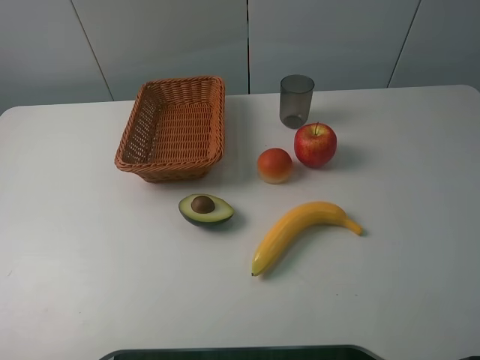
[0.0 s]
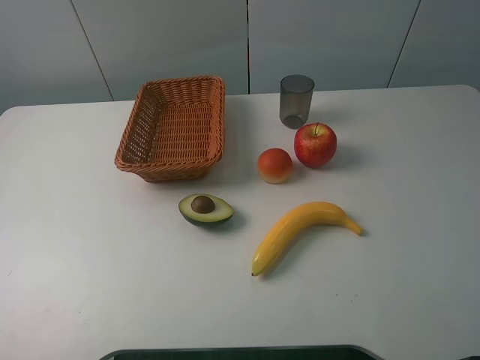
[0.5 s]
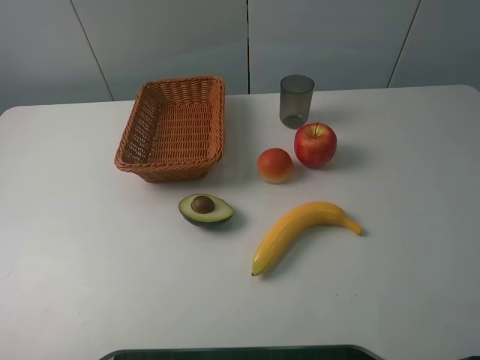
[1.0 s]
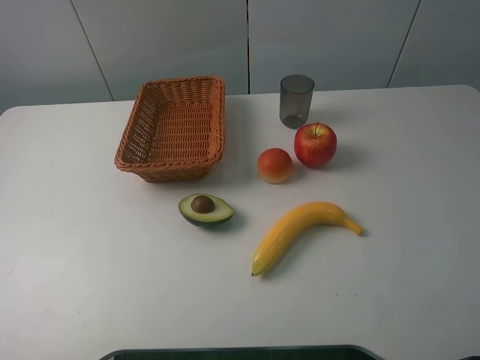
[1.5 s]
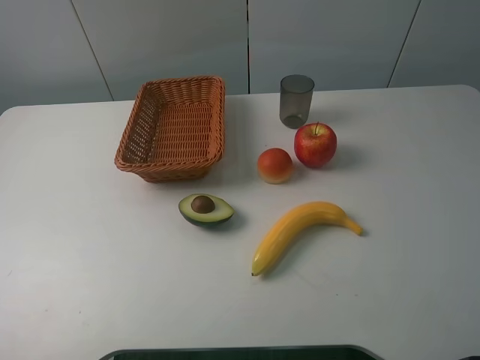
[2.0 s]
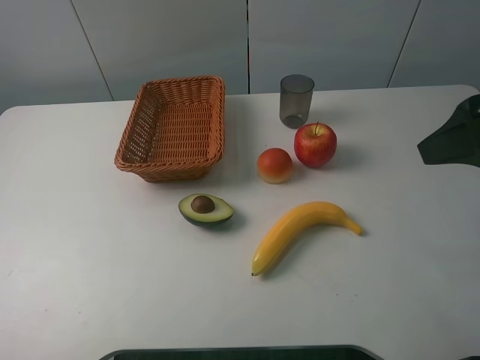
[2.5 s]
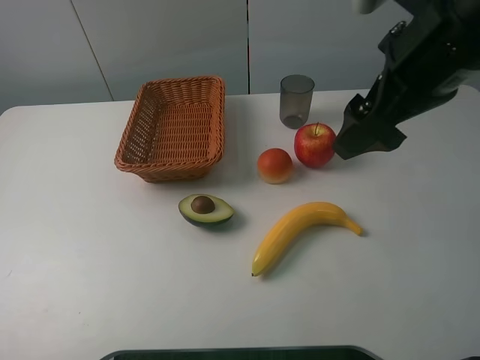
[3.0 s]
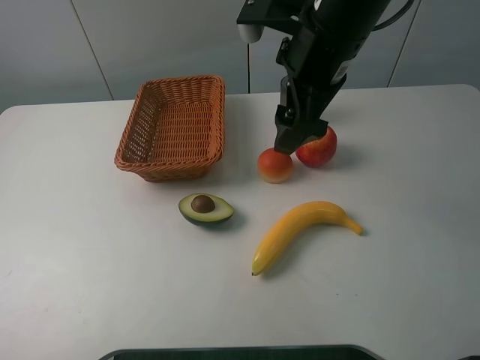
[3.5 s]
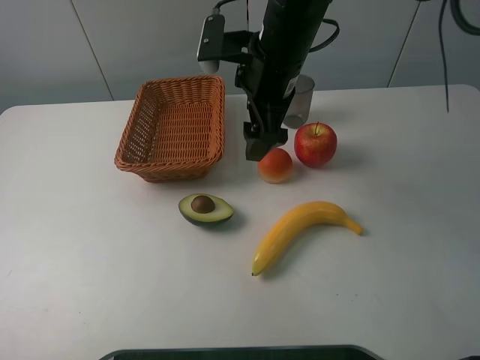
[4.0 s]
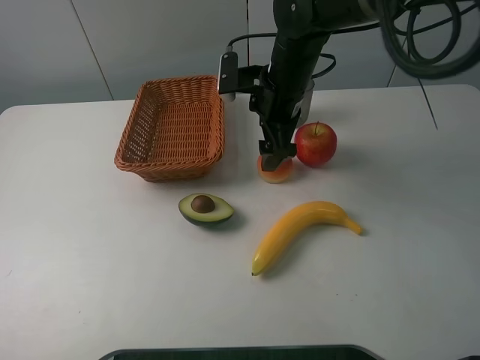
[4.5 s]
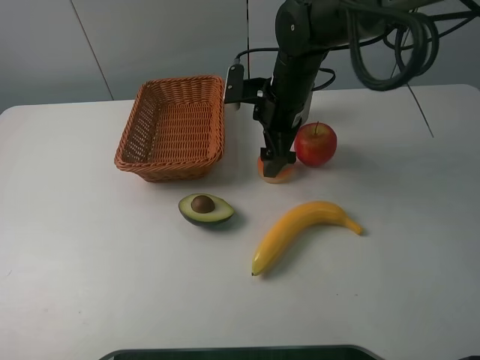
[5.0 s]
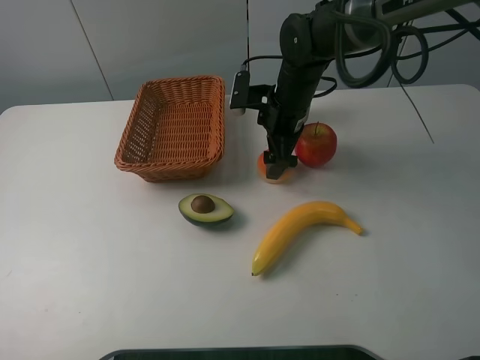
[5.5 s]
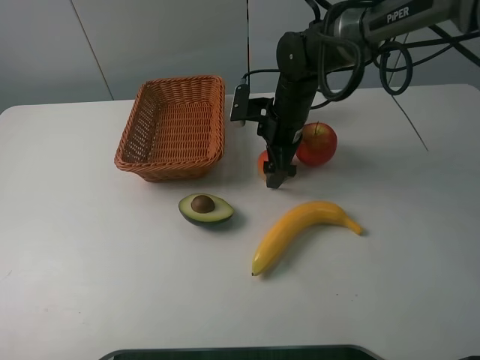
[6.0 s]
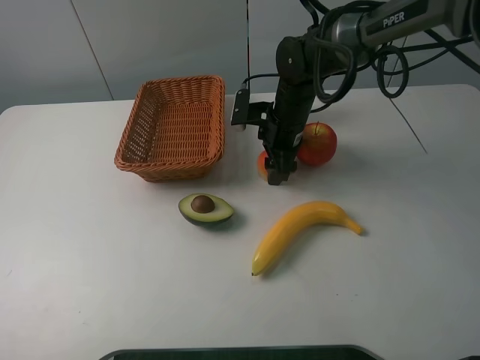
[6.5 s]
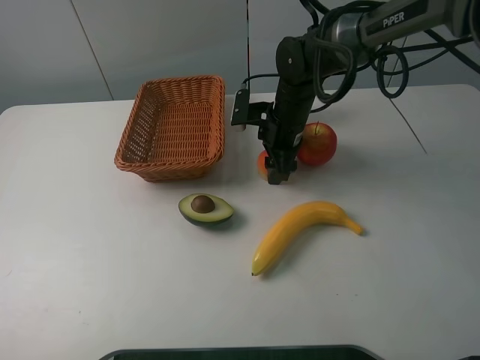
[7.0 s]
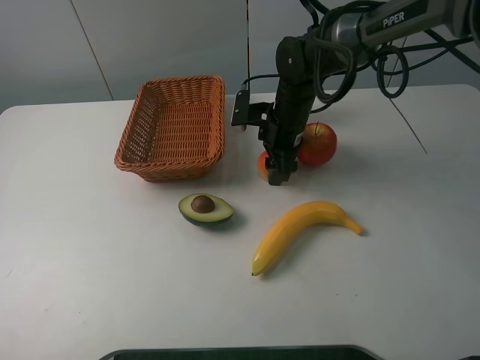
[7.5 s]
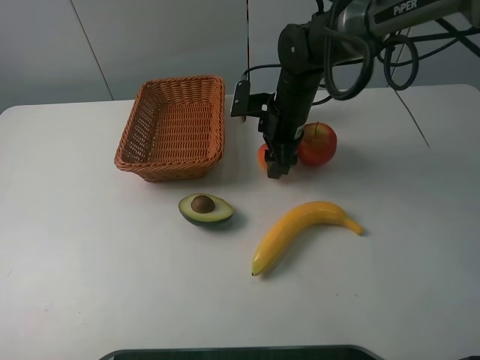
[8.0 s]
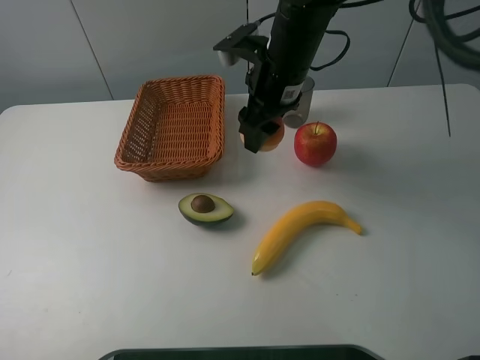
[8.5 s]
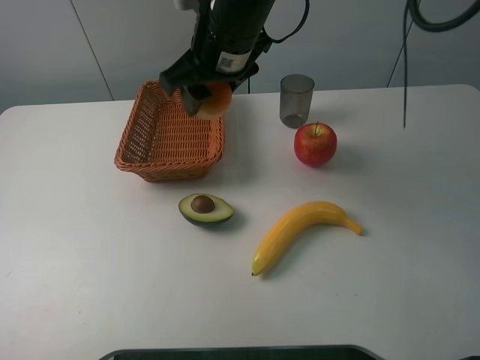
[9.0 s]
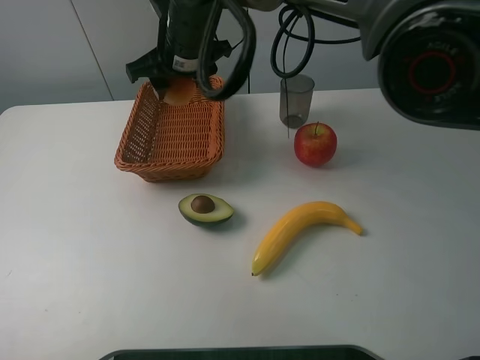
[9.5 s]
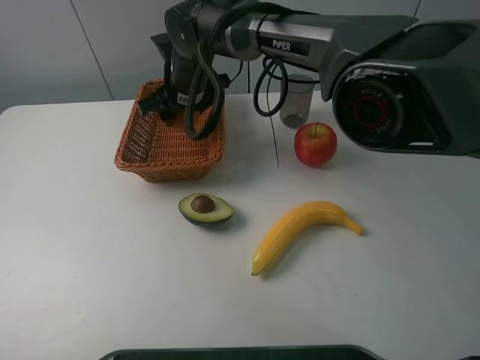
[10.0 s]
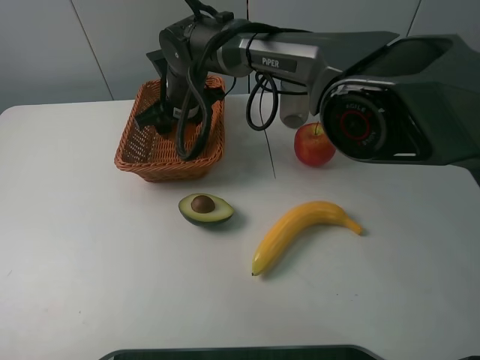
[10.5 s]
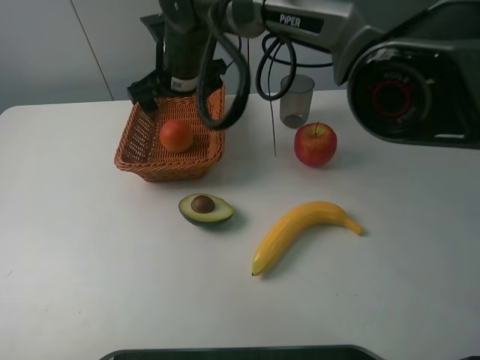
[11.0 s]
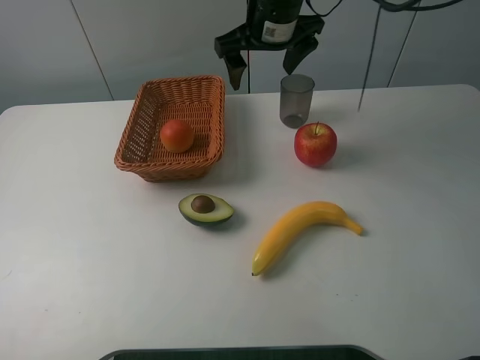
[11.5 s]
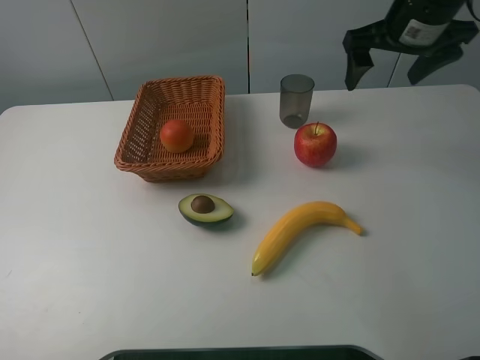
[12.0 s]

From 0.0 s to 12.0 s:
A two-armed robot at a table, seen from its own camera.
From 2.0 s to 4.0 s: The right gripper goes some 35 cm forward, to the left and downward.
From 4.0 s to 6.0 s: The right gripper shifts approximately 15 cm downward and forward.
From 6.0 s to 8.0 s: The right gripper closes its fingers.
From 8.0 s to 10.0 s: The right gripper goes roughly 15 cm to the left.
From 10.0 s to 12.0 s: The right gripper goes about 35 cm to the right and upward, and opens up.

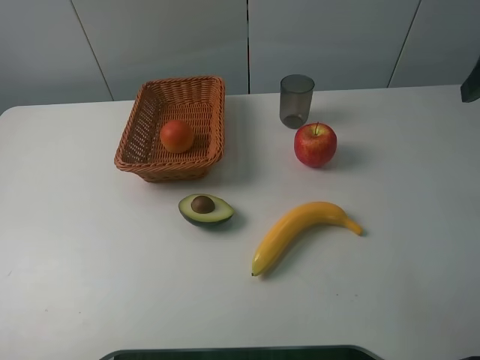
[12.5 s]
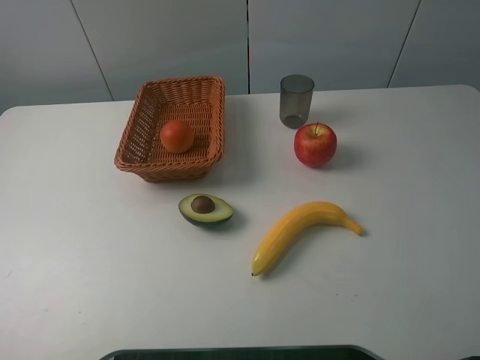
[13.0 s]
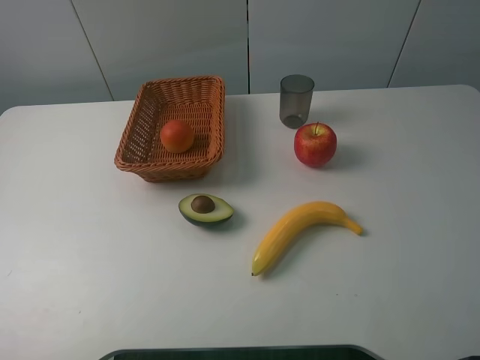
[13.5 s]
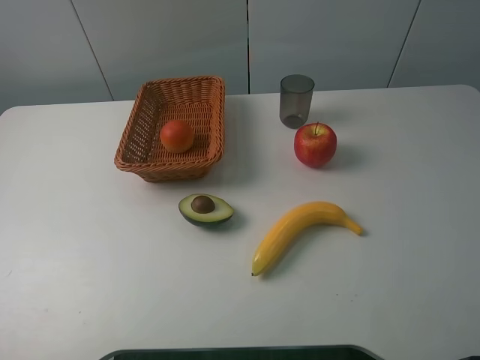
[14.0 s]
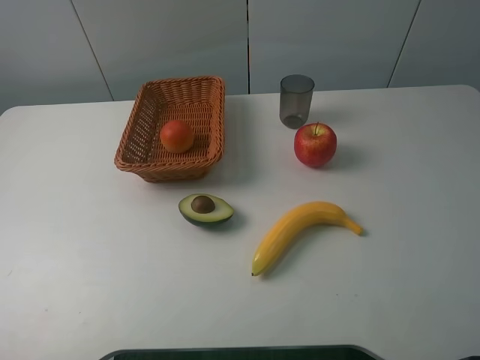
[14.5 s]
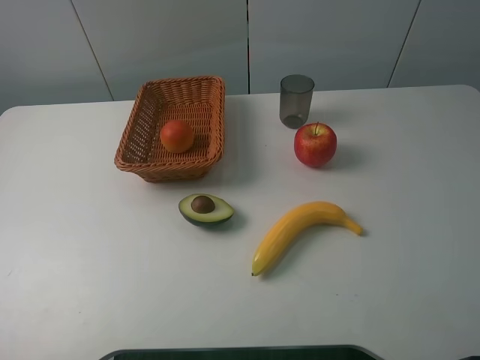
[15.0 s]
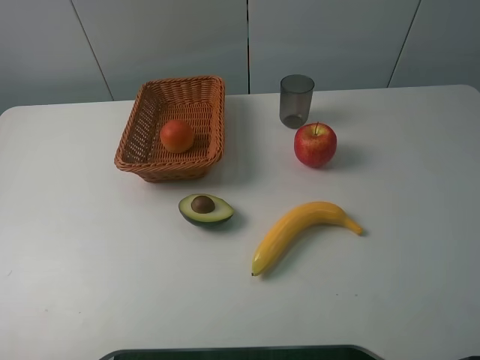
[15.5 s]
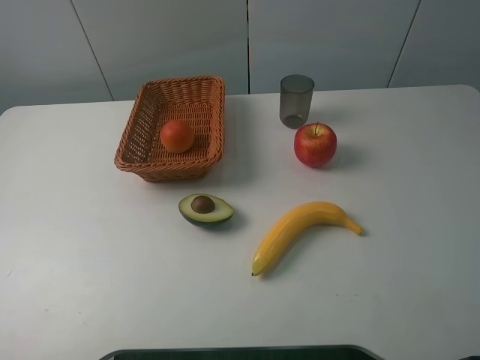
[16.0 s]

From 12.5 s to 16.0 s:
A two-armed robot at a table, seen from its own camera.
From 14.5 s to 16.0 s: Both grippers stay put.
